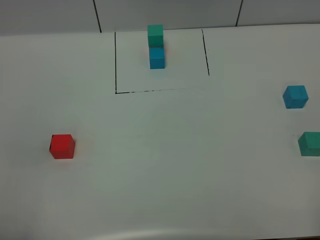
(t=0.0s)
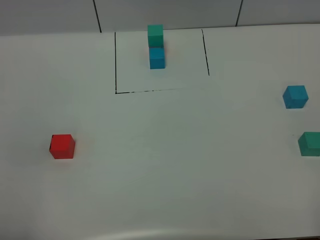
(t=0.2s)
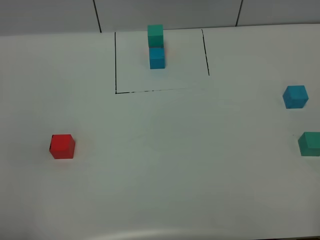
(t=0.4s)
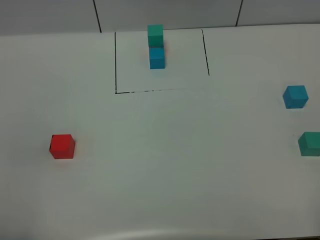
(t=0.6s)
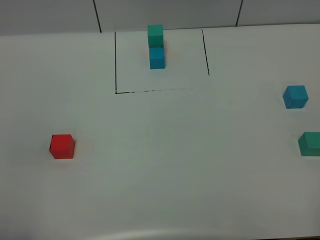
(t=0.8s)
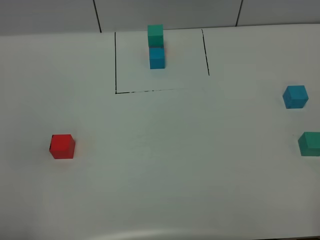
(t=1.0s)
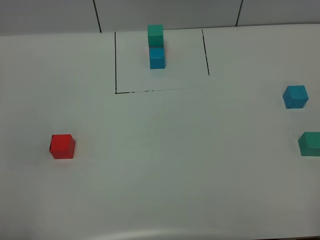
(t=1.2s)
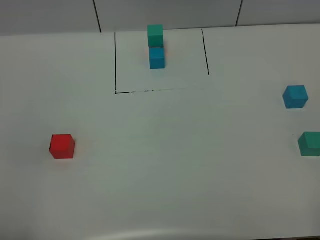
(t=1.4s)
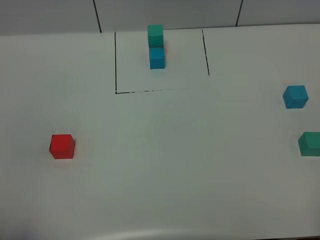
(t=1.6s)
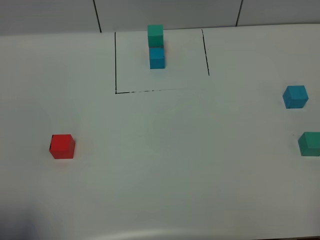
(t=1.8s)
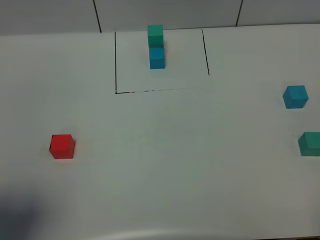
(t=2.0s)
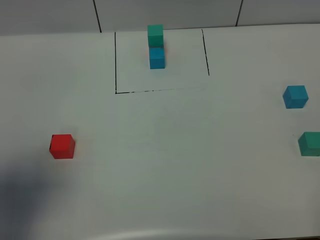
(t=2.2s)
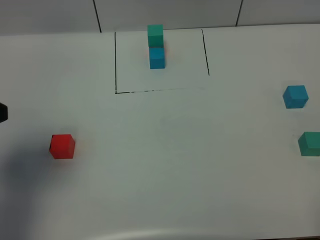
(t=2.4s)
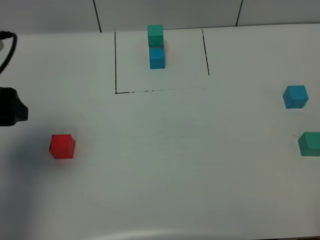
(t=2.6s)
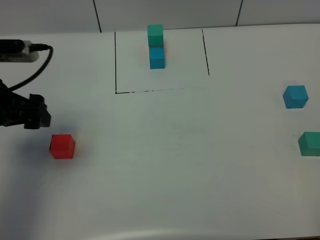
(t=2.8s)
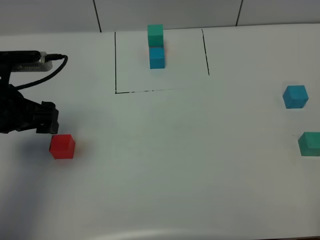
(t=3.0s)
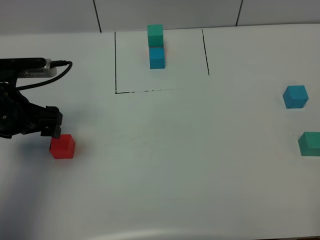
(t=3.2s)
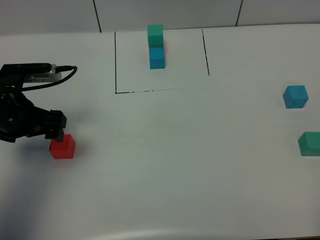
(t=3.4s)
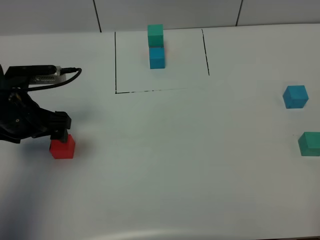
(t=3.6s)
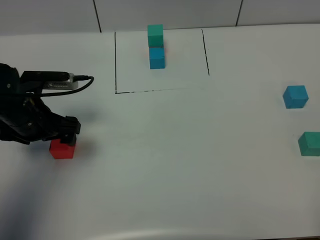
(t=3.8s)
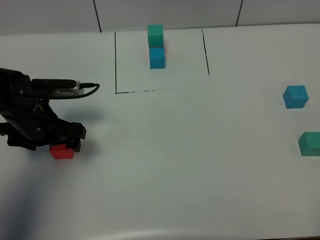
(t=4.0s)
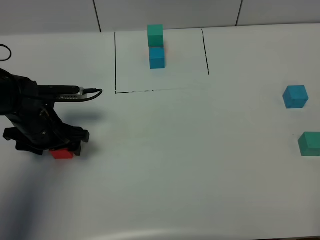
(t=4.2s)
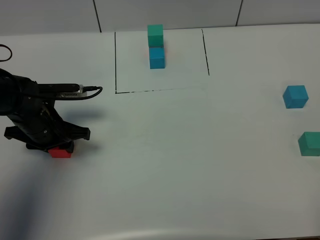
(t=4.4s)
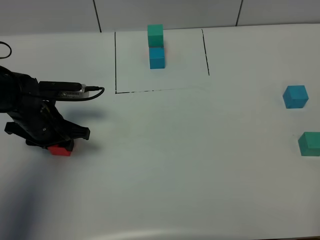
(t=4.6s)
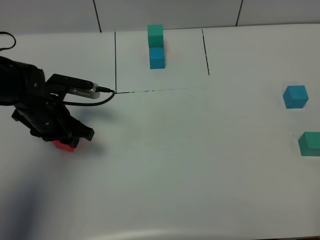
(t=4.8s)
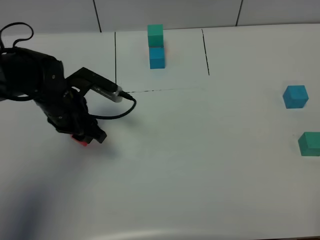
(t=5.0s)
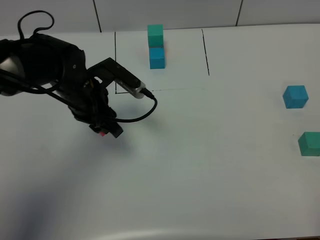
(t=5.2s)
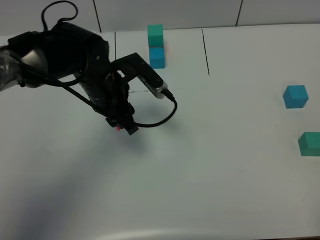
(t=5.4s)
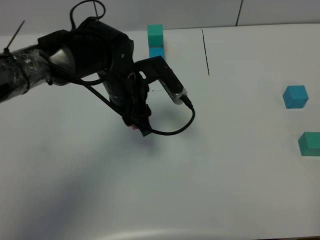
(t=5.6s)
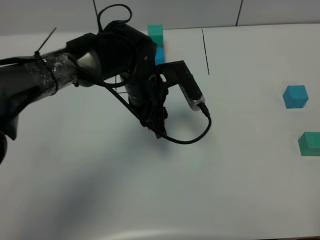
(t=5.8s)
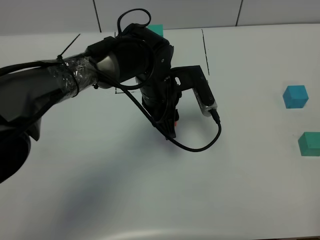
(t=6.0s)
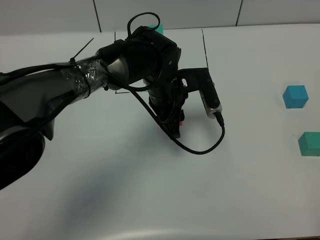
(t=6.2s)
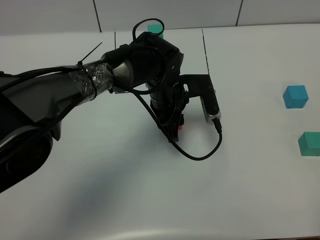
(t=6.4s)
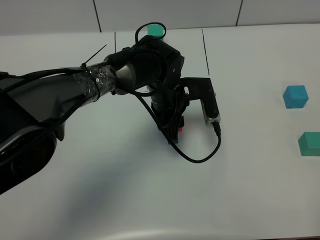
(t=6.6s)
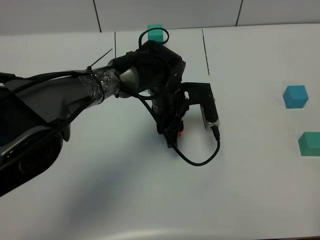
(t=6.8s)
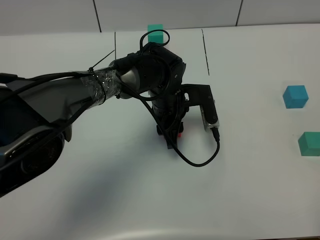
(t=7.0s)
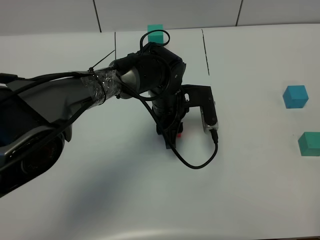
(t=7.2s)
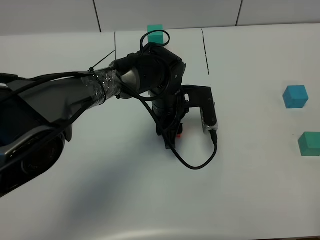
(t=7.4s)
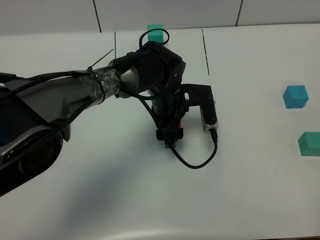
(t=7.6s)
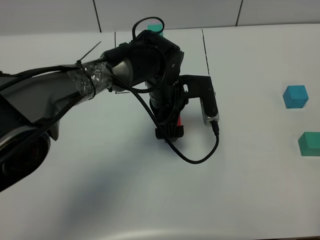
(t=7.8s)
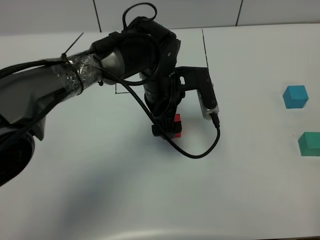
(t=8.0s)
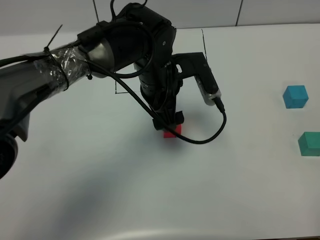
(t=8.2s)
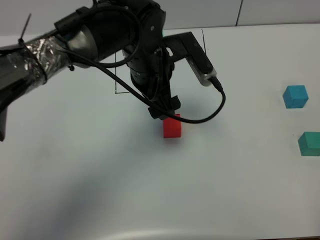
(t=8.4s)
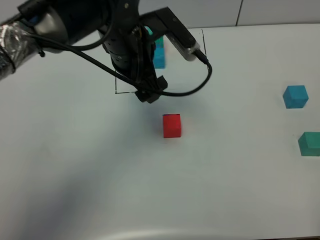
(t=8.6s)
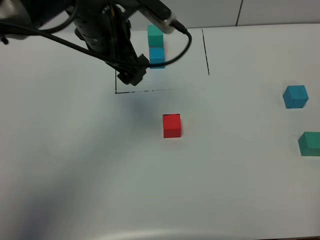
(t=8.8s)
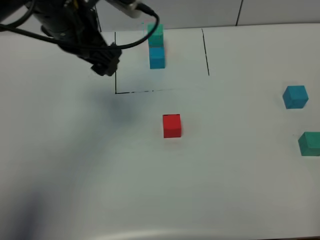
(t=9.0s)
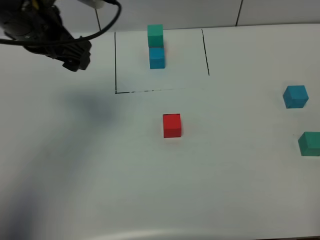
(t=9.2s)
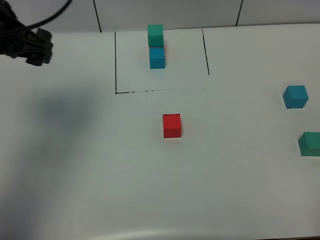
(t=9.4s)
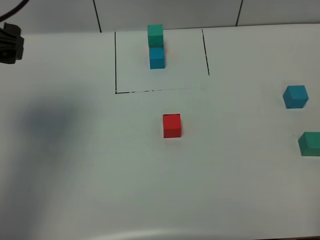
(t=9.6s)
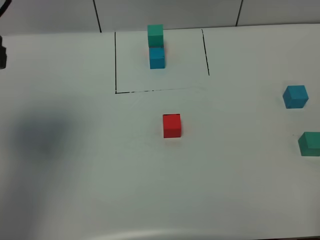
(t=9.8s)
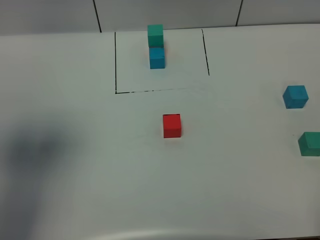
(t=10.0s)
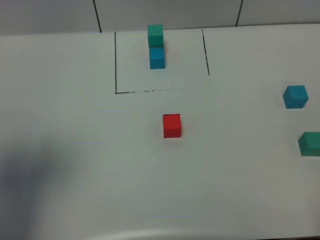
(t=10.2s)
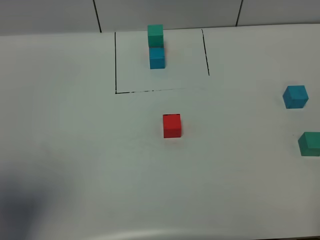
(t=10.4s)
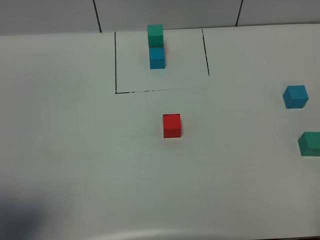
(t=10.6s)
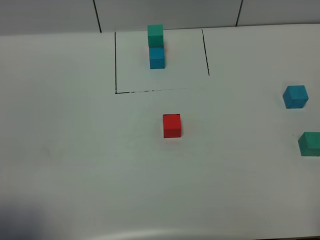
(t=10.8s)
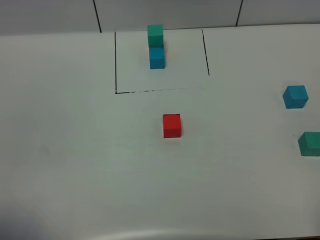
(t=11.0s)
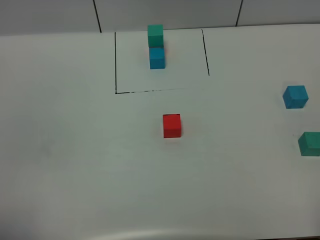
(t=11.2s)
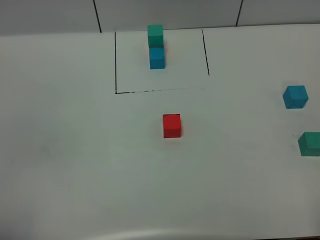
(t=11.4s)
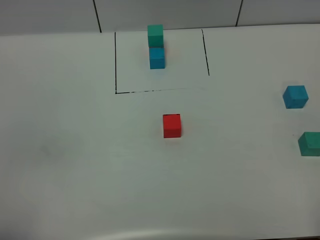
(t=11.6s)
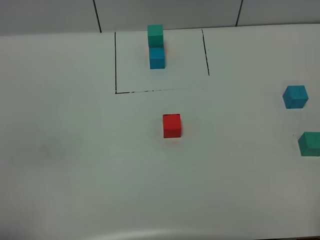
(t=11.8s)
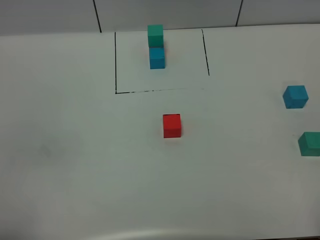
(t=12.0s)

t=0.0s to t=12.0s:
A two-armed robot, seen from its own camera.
Task of the whole recording: According to the building block template in front, assemble the scattered blocks together.
Step, t=2.4s to t=8.0s: Put the red cube in the center of the table.
t=1.6s to t=3.0s: The left gripper shifts some 25 cm forward.
t=3.0s to t=4.4s: The left gripper travels downward by roughly 10 cm, and closes its fingers.
t=4.4s to t=6.0s: The left gripper is displaced to the right by approximately 25 cm.
t=6.0s to t=7.6s: The left gripper opens its fingers.
t=7.6s to t=9.0s: The left gripper goes about 25 cm upward and to the left.
t=9.0s to t=10.4s: The left gripper goes approximately 30 cm backward and to the left.
t=10.4s to t=12.0s: The left gripper is displaced backward and downward by approximately 15 cm, and closes up.

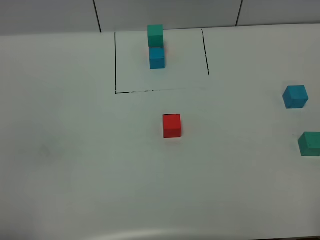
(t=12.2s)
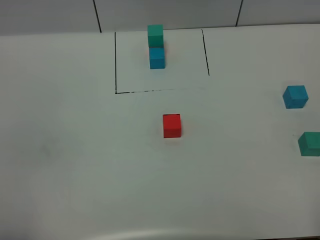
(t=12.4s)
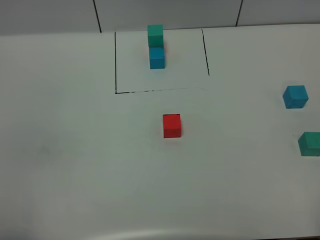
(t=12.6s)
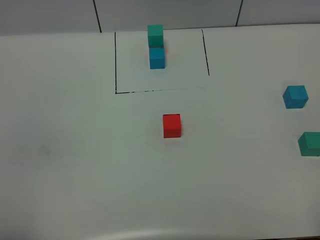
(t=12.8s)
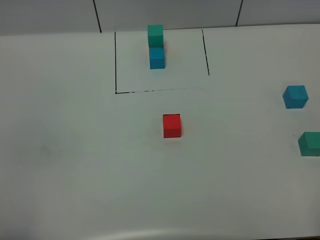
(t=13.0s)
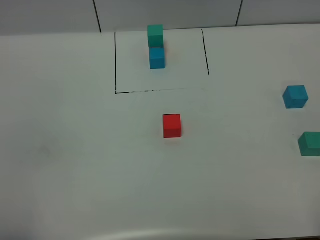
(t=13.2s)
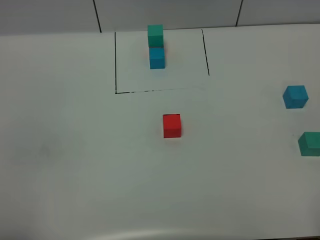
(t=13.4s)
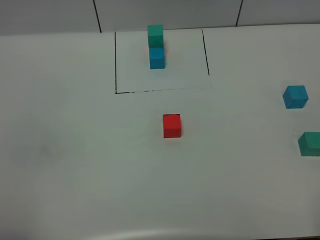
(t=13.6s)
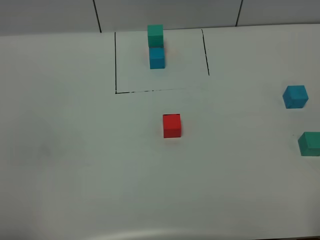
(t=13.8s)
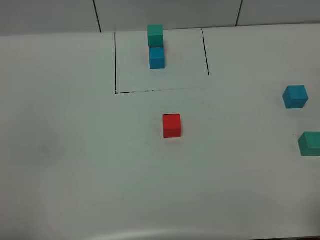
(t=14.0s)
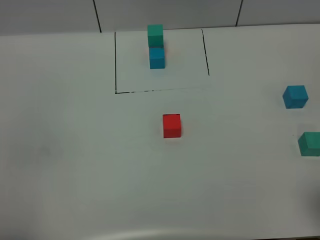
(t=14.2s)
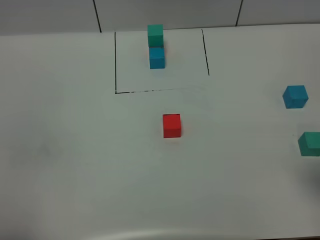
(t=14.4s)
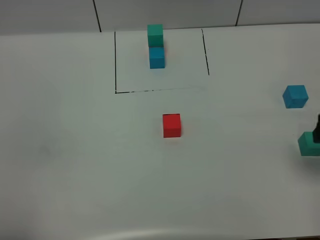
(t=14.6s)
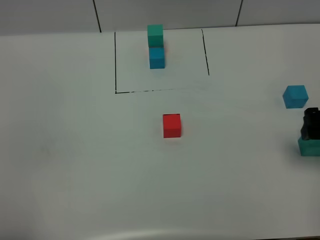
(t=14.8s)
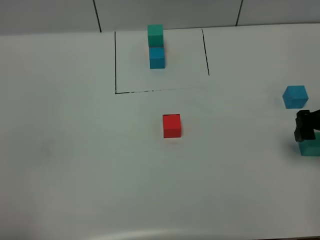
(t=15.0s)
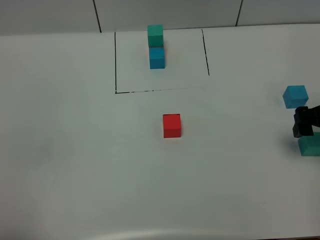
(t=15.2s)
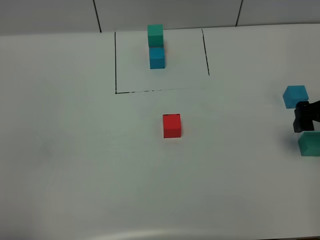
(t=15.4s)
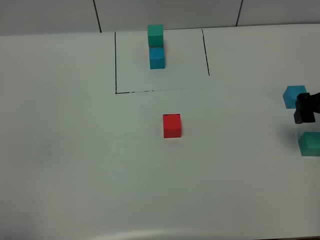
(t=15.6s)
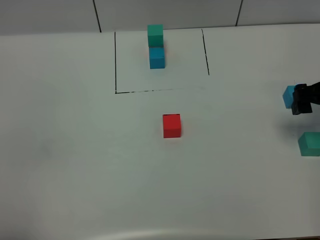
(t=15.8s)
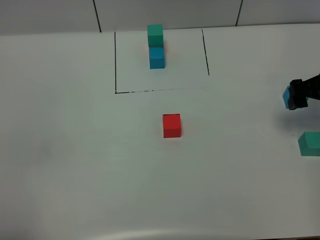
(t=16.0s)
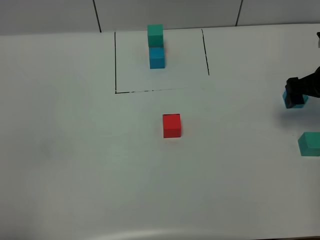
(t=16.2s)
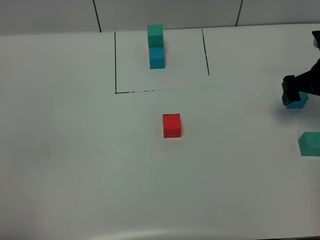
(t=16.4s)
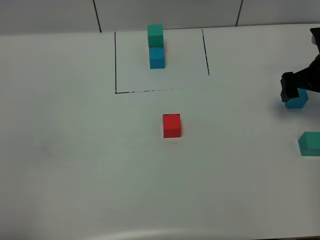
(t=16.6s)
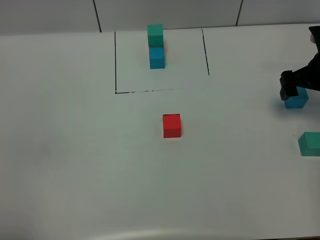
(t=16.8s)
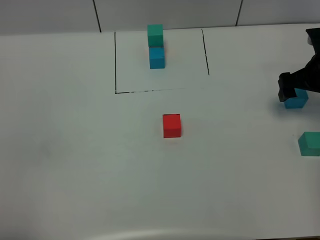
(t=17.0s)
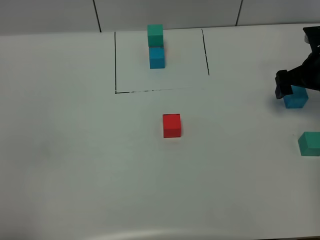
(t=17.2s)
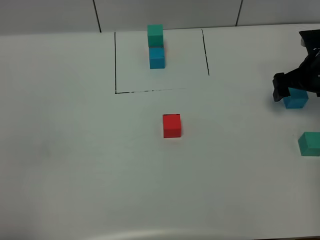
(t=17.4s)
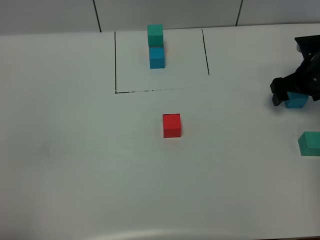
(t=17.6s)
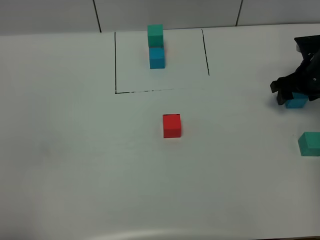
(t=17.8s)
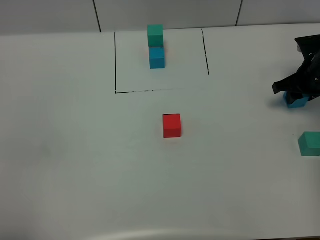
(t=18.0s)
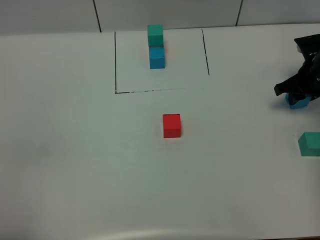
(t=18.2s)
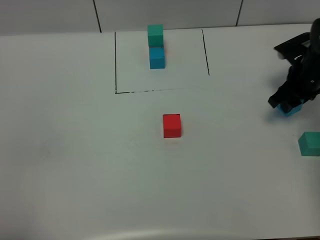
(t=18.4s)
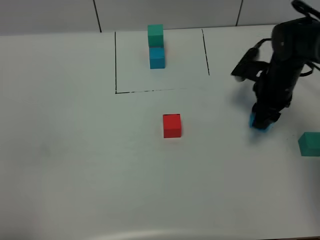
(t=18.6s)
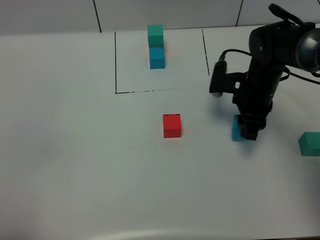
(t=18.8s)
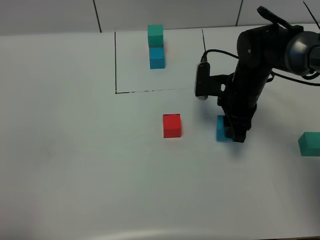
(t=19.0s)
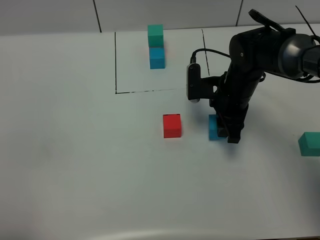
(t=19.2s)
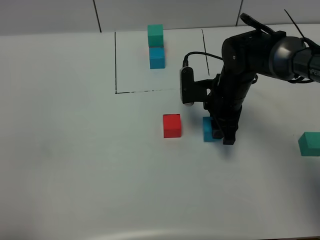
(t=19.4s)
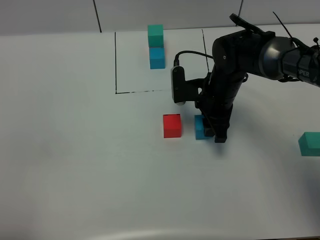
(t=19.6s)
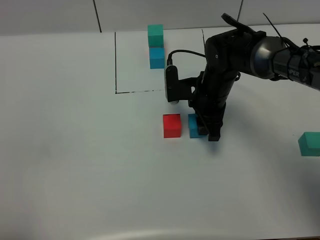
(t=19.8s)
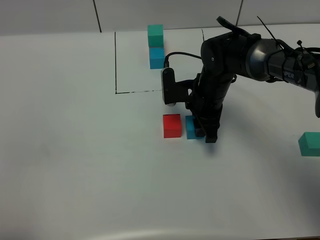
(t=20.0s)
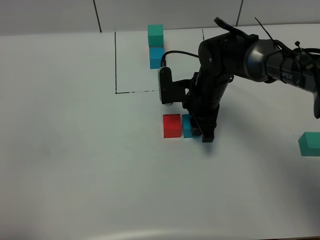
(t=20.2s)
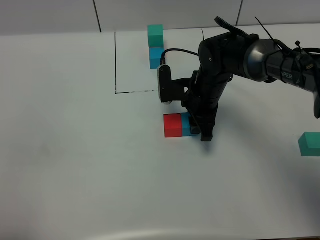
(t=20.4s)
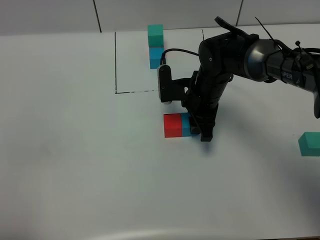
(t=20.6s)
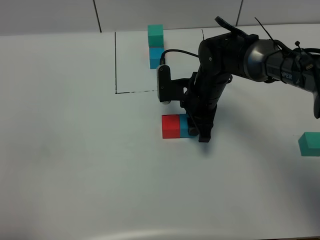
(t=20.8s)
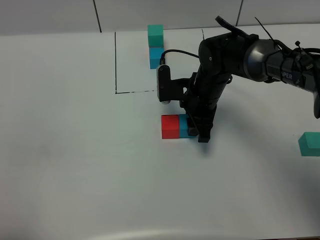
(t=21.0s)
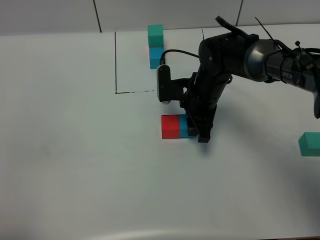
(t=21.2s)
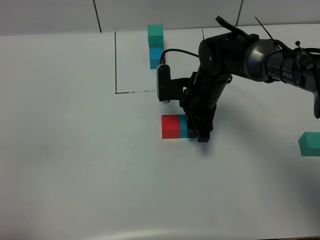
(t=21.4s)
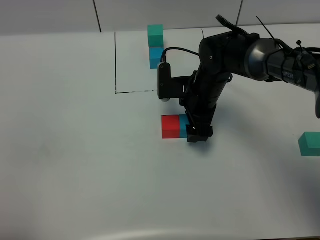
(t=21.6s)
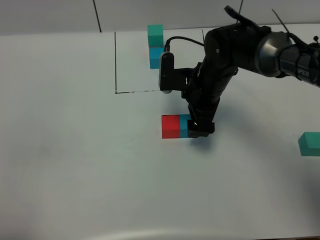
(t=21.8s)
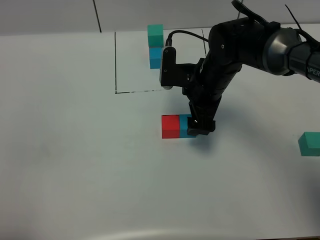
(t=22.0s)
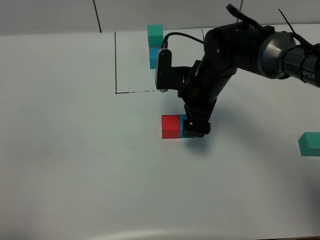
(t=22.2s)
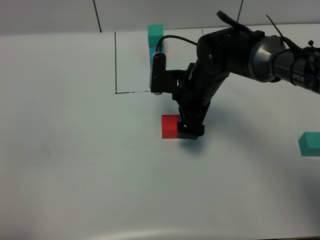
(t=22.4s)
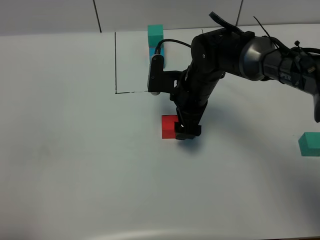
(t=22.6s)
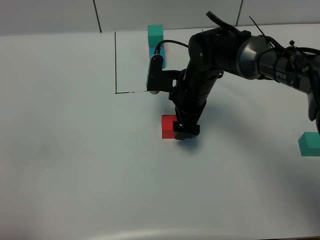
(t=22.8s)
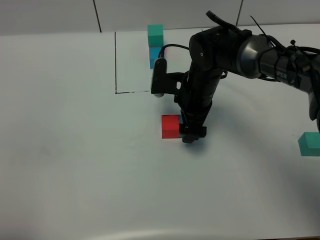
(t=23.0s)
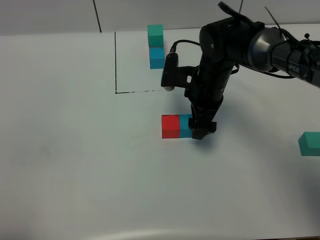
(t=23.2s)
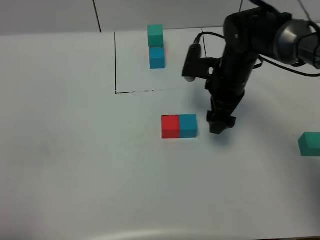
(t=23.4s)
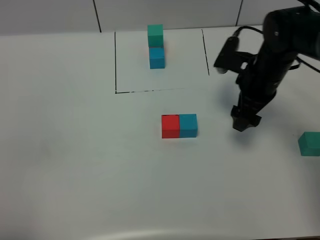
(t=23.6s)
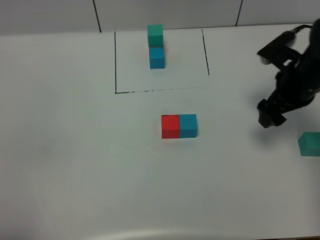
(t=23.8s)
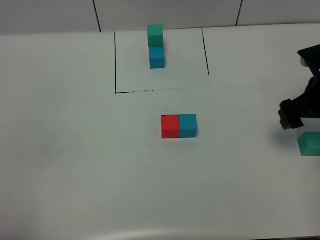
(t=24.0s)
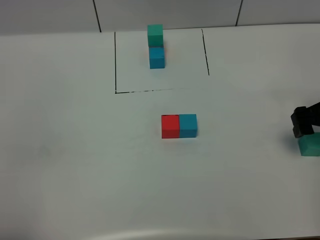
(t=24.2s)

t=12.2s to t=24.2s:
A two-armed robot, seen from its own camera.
Task of the whole recording: According to the building block template in front, assemble the scattered blocks together.
Step, t=12.2s to t=21.8s: Put the blue cube on the right of the red cube.
t=13.8s to t=15.2s: The right gripper heads forward, covering approximately 25 cm.
t=15.2s to t=16.6s: The right gripper is displaced forward by approximately 10 cm.
t=16.6s to t=18.2s: The right gripper ends up roughly 5 cm from where it was, and closes its fingers.
t=18.2s to t=19.8s: The right gripper shifts roughly 20 cm to the left.
t=19.8s to t=21.2s: Both grippers stay put.
t=21.2s to t=22.6s: The right gripper opens its fingers.
t=22.6s to t=24.2s: The right gripper heads to the right, covering about 25 cm.
